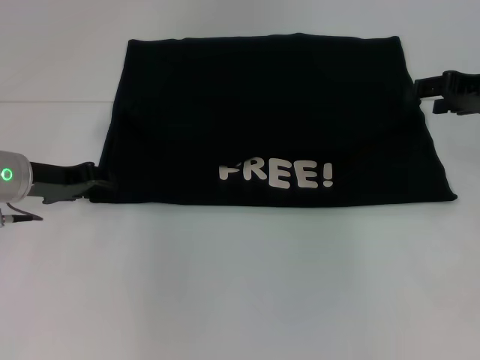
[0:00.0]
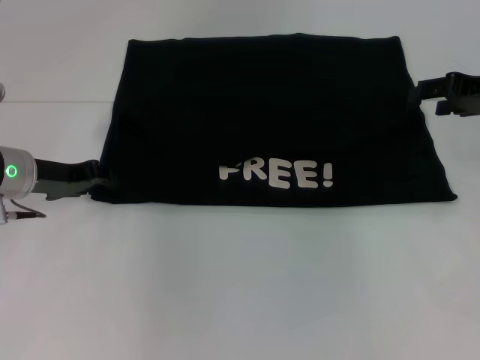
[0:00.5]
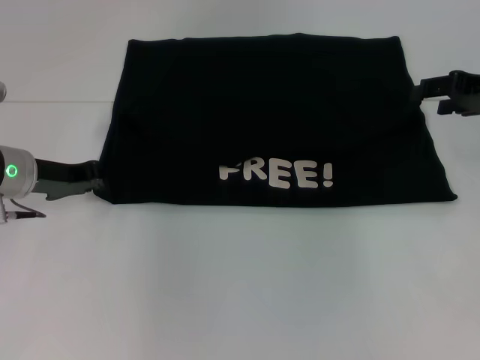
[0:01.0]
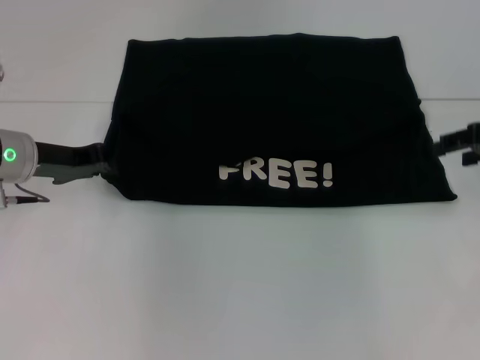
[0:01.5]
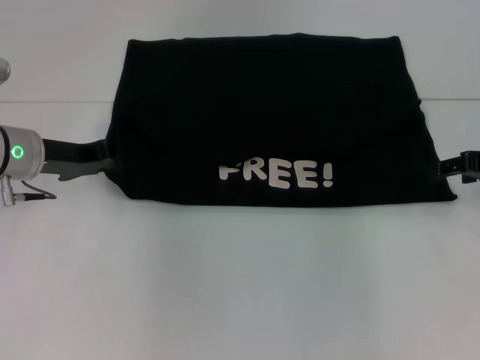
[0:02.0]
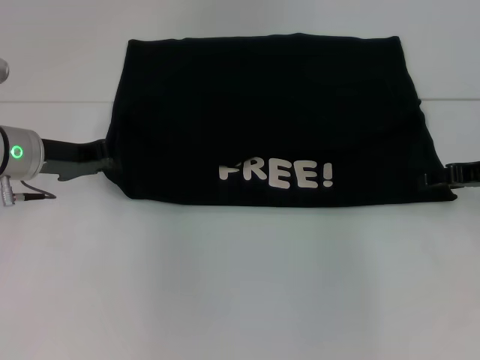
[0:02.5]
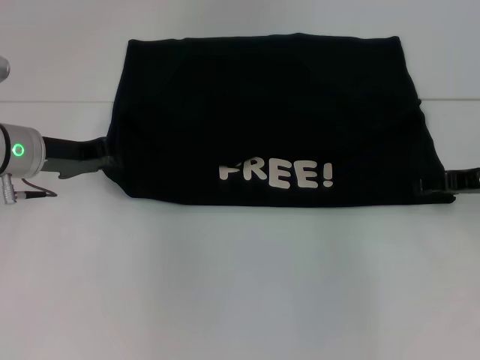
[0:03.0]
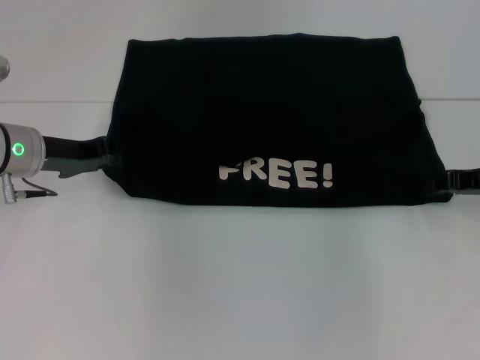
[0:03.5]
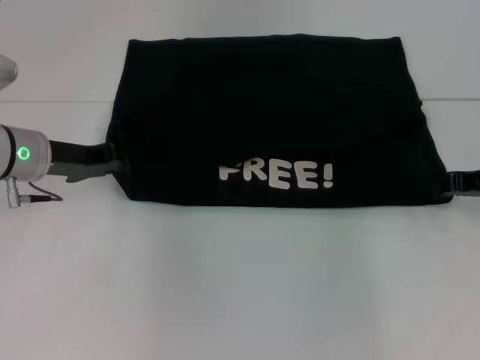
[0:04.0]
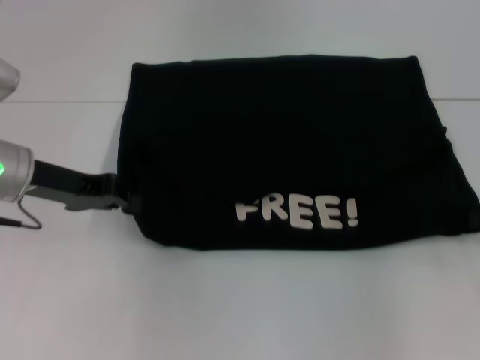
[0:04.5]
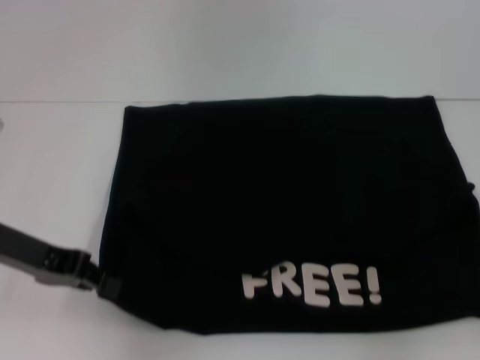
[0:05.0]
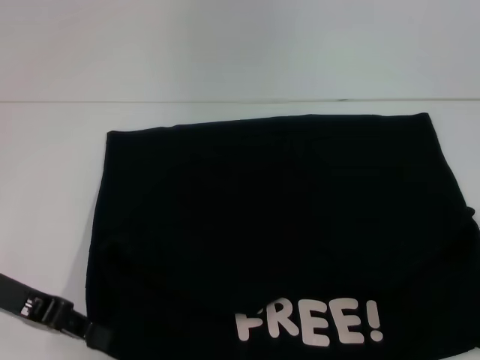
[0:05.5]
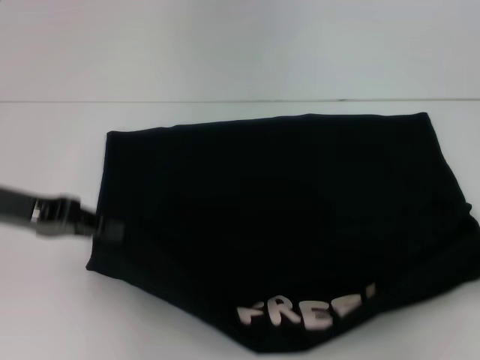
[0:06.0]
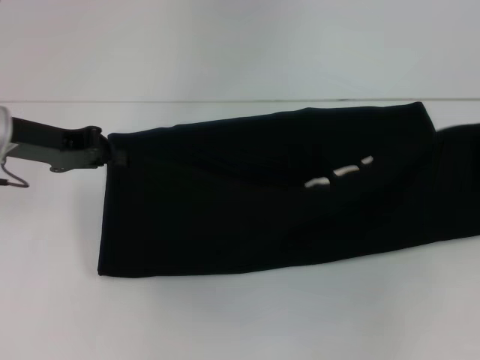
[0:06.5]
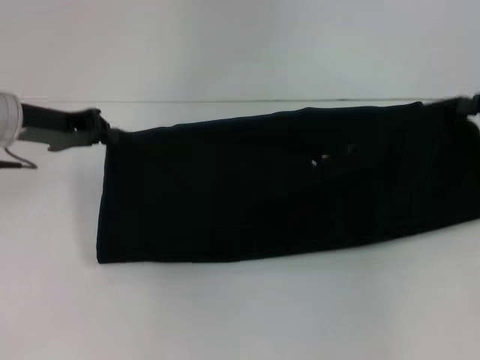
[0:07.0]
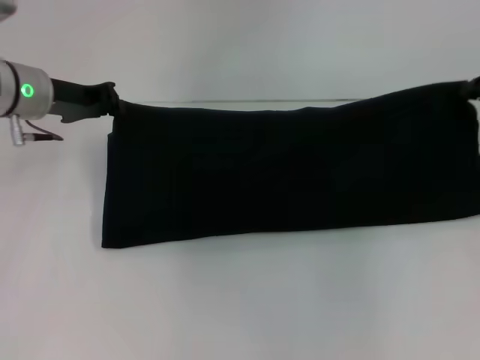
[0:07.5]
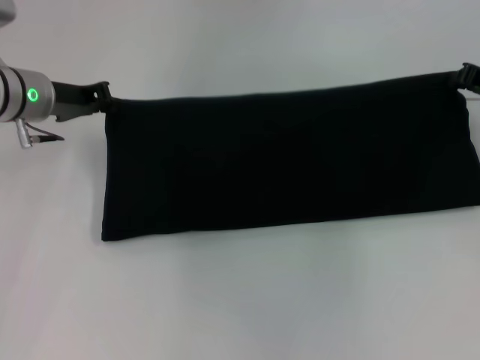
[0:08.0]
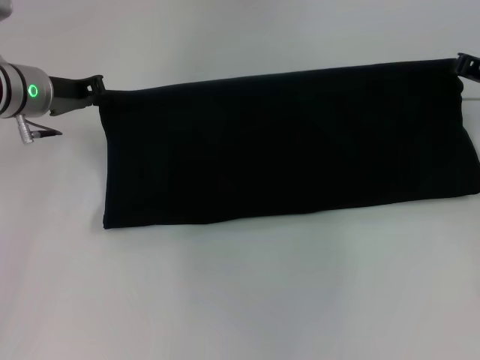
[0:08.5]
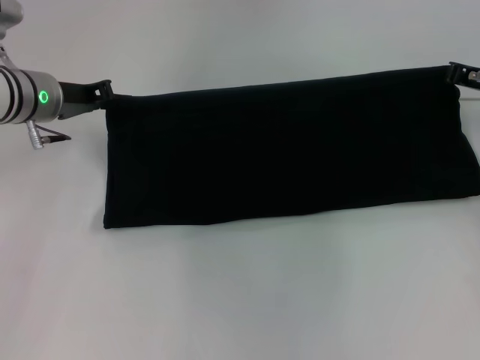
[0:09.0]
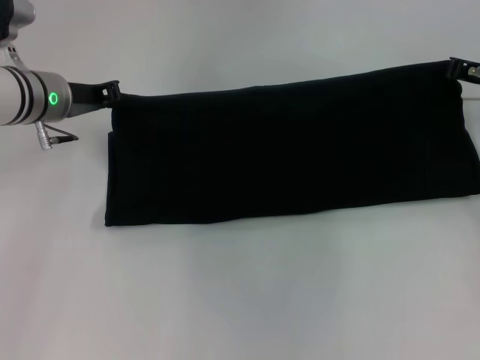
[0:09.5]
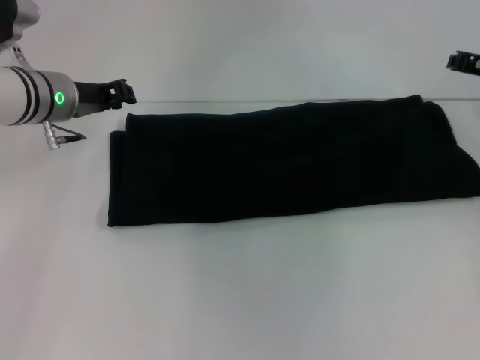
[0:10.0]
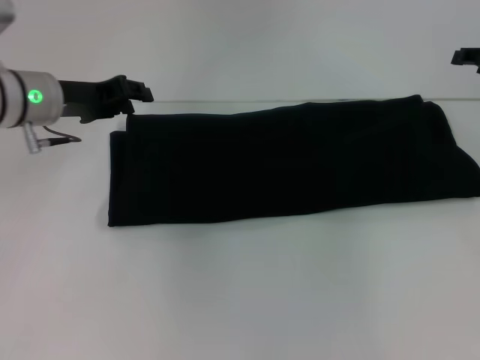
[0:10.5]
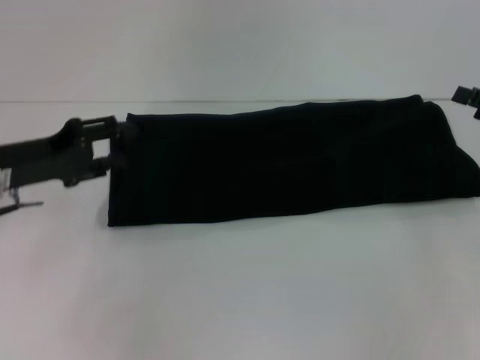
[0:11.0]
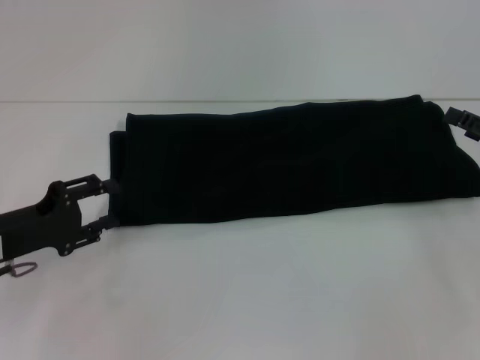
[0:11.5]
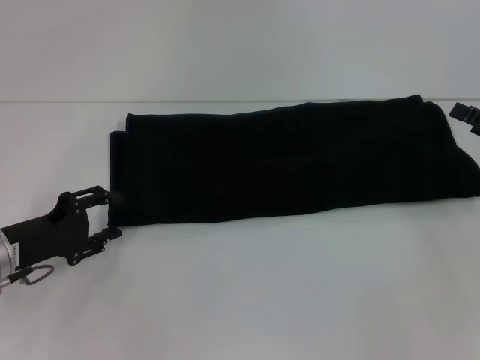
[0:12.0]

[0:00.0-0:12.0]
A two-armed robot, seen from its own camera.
Step, 0:00.0 to 0:05.0: Pull the clothes with your left hand.
Step, 0:00.0 to 0:05.0: Pull the clothes with your right hand.
Step, 0:05.5 to 0:10.5: Fold the clothes with your right hand.
0:00.0 to 0:02.0: The right gripper shifts by about 5 cm. The left gripper closes up.
0:02.0 to 0:04.0: The right gripper closes its fingers.
0:04.0 to 0:06.0: The left gripper moves backward and upward, about 10 cm, while the right gripper heads backward, to the right and upward, covering some 15 cm.
0:06.0 to 0:08.0: The left gripper is displaced forward by some 10 cm. Meanwhile the right gripper heads forward and to the left, covering about 15 cm.
0:08.0 to 0:10.0: There are only small adjustments of the grippers.
0:10.0 to 0:12.0: The left gripper heads backward, downward and to the left, covering roughly 20 cm, and opens. The right gripper shifts roughly 15 cm backward and to the right, and opens.

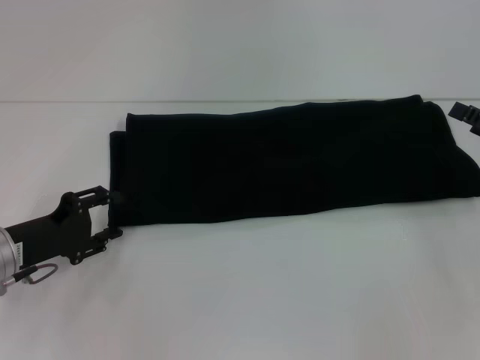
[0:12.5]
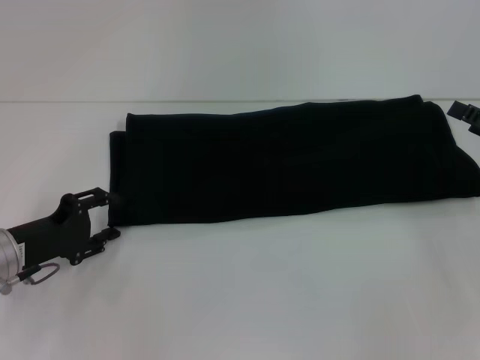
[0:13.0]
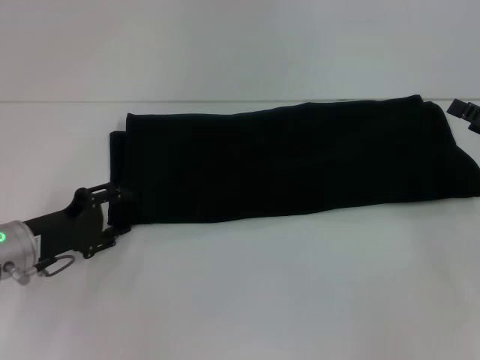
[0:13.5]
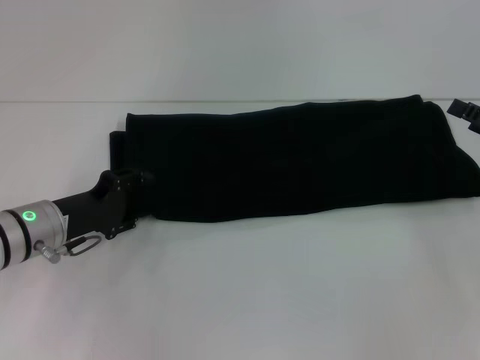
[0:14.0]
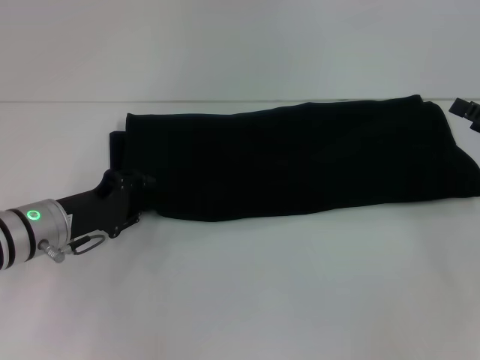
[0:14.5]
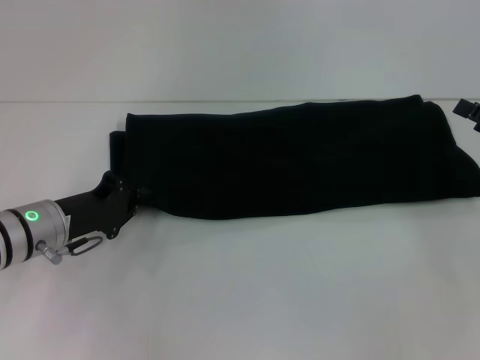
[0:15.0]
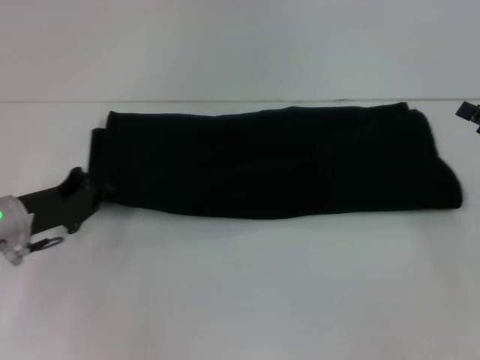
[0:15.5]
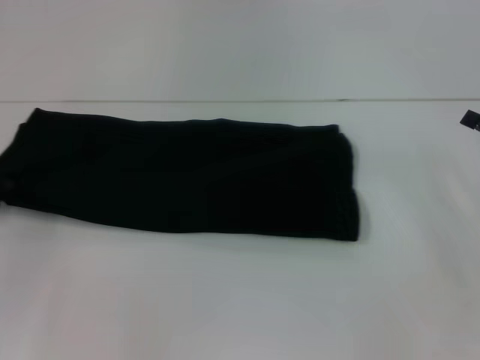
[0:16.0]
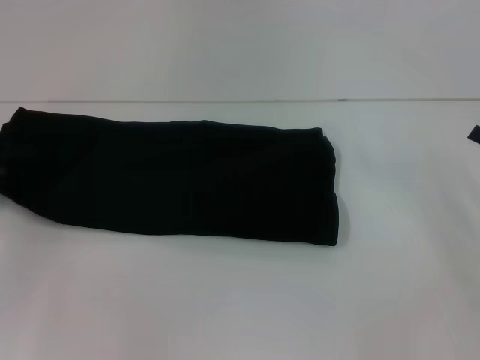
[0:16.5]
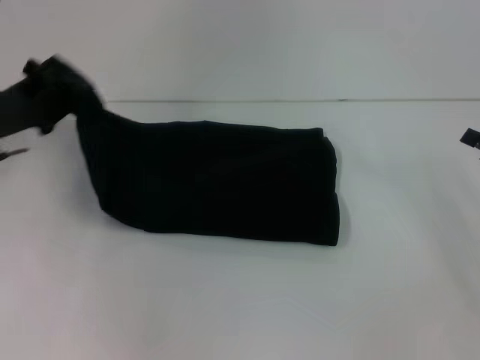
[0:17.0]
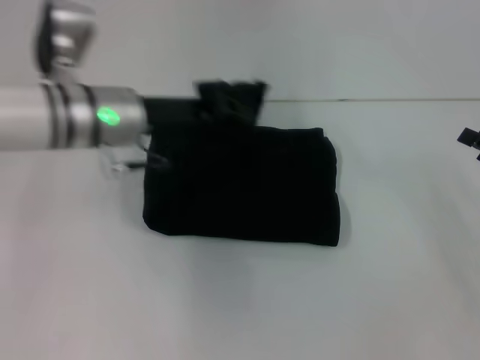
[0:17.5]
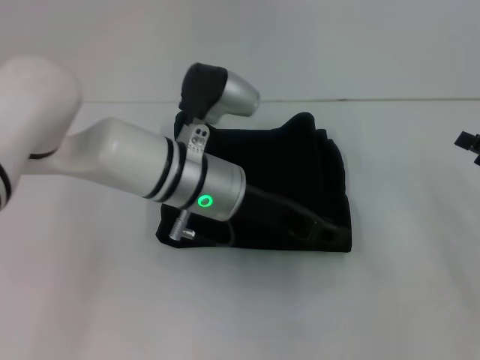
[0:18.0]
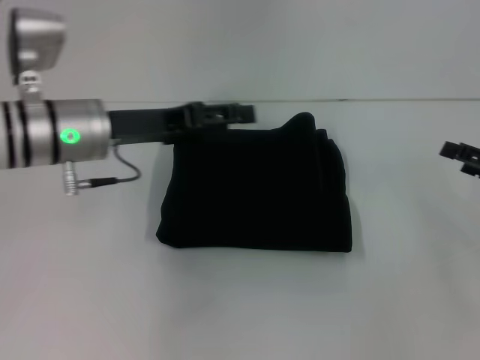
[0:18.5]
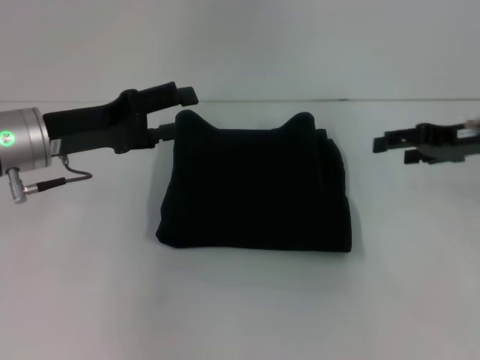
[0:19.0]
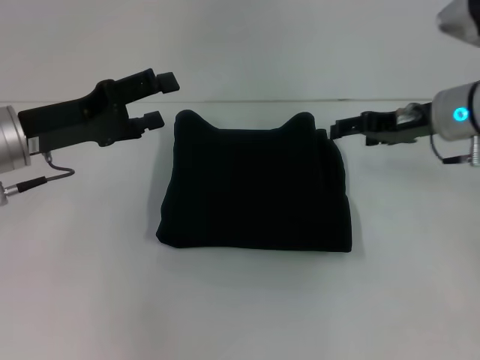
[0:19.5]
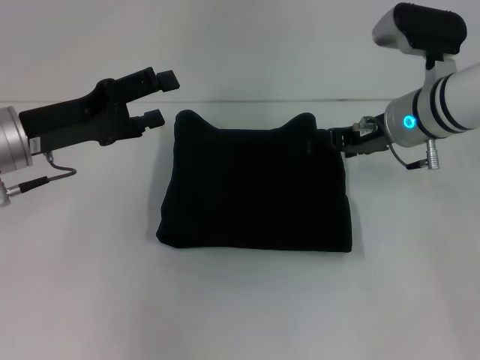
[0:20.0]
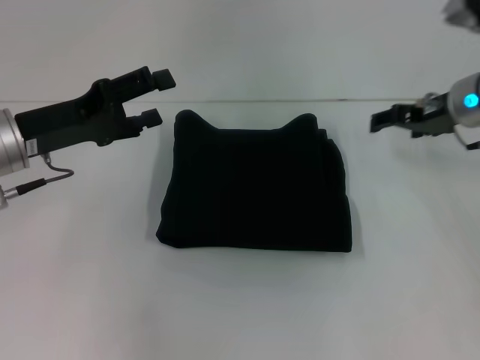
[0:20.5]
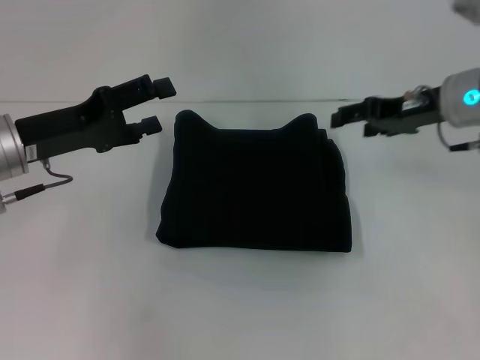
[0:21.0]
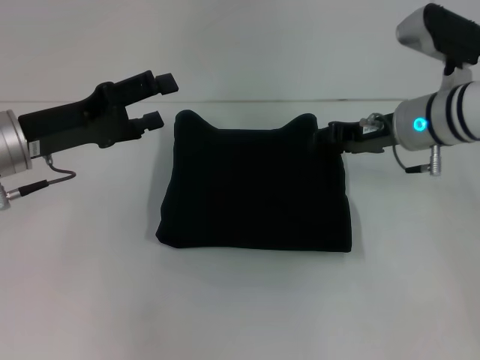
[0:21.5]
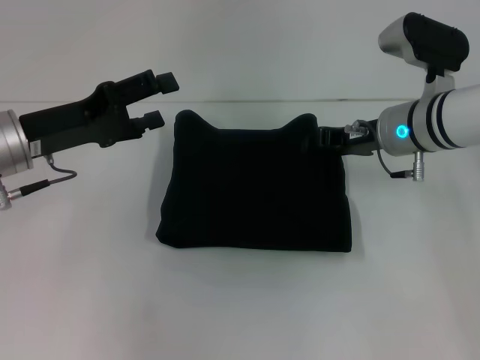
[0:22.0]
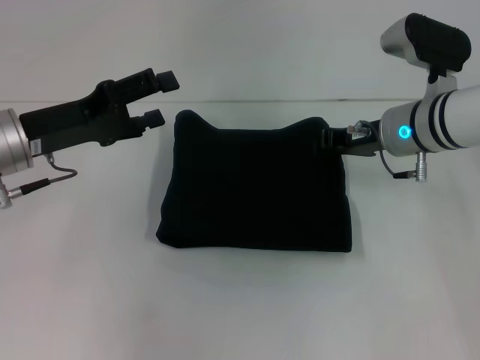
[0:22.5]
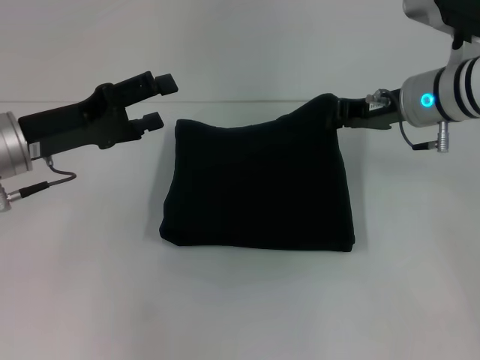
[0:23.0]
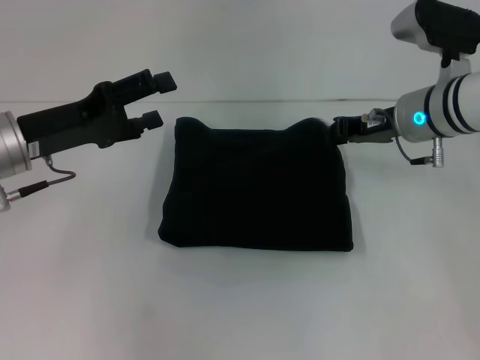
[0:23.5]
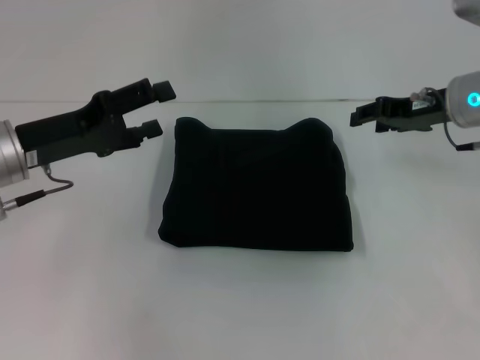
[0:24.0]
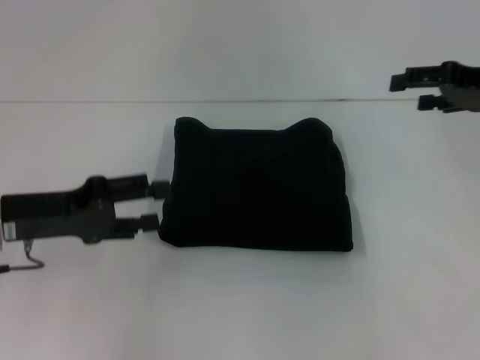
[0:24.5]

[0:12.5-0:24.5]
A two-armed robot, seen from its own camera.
Step, 0:12.5 to 0:18.0: Fold the clothes with your left hand.
0:12.5 to 0:14.5: The left gripper shifts by about 5 cm.
0:14.5 to 0:16.5: The left gripper goes approximately 15 cm to the left, and closes its fingers.
0:16.5 to 0:18.5: The left gripper shifts roughly 20 cm to the right and upward, and opens up.
0:18.5 to 0:20.5: The left gripper goes approximately 5 cm to the left, and opens its fingers, while the right gripper goes roughly 20 cm forward, to the left and upward.
0:20.5 to 0:22.5: The right gripper moves to the left, roughly 5 cm, and closes.
0:22.5 to 0:24.5: The right gripper moves to the right and upward, some 15 cm, and opens up. Meanwhile the left gripper changes place by roughly 5 cm.

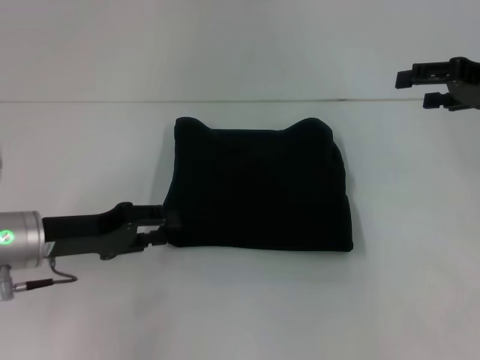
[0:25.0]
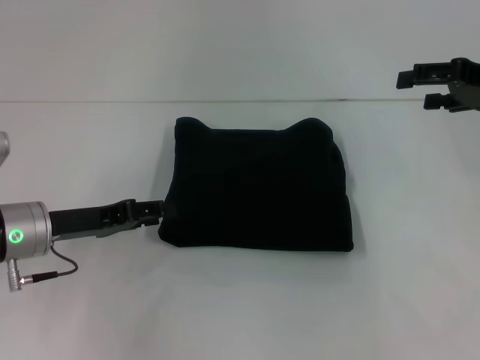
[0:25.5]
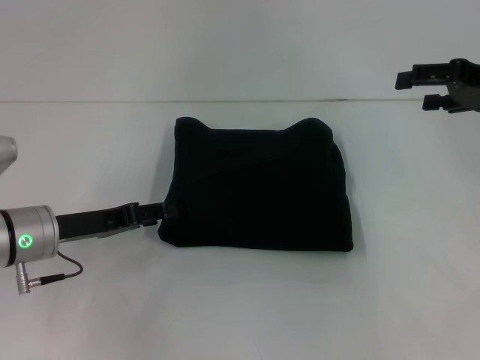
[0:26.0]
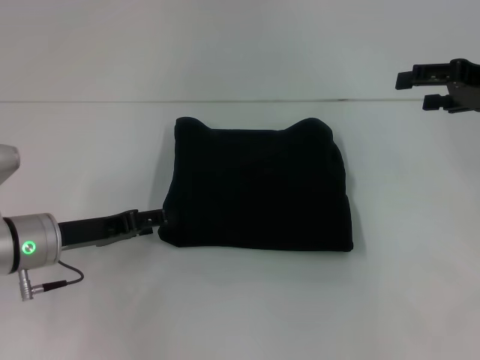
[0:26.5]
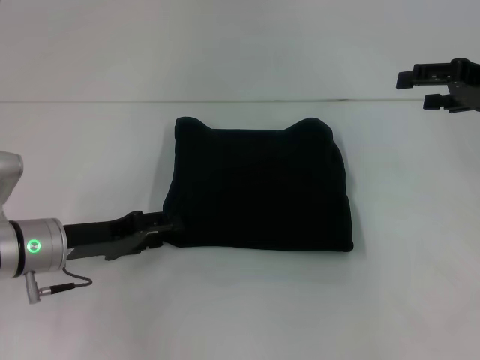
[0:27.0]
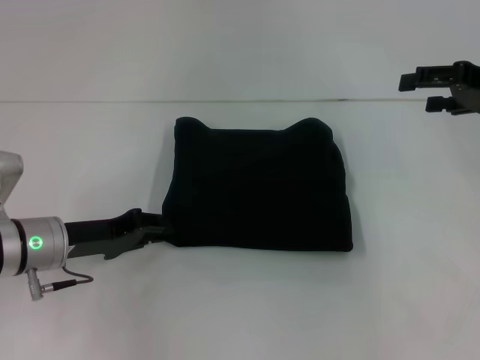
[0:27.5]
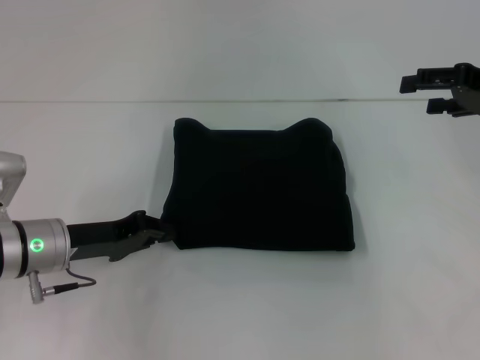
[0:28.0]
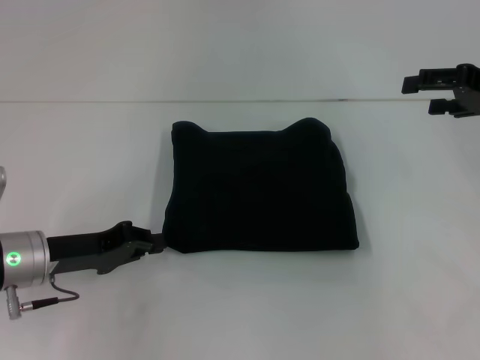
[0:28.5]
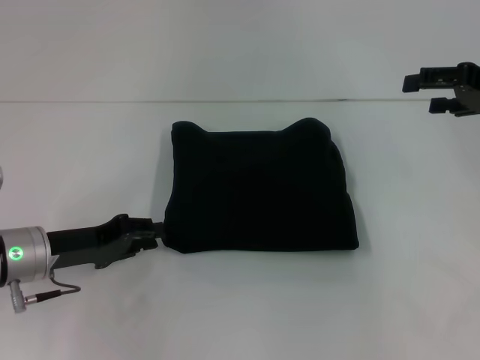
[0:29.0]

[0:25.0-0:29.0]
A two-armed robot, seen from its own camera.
0:27.0 to 0:29.0: The left gripper closes.
